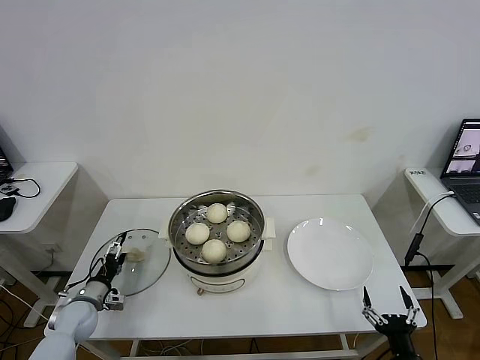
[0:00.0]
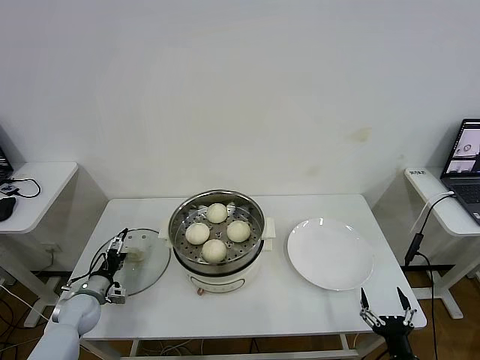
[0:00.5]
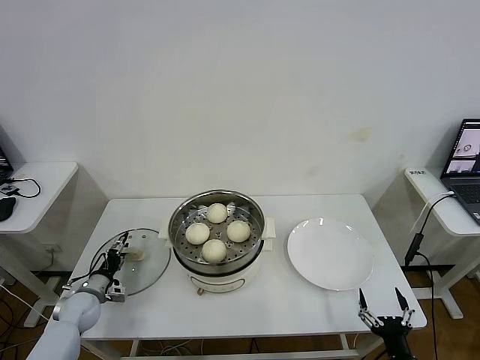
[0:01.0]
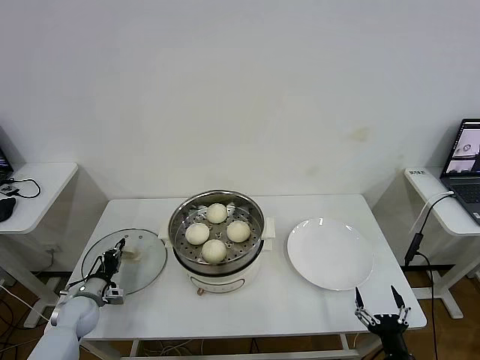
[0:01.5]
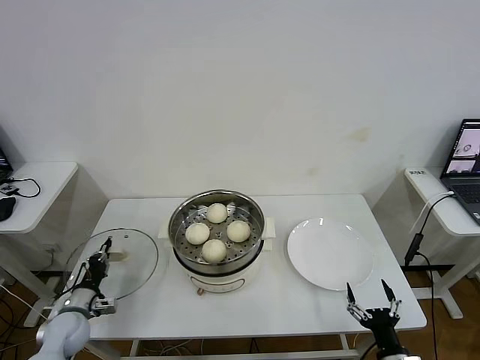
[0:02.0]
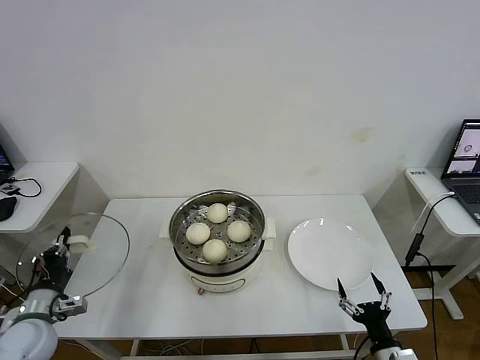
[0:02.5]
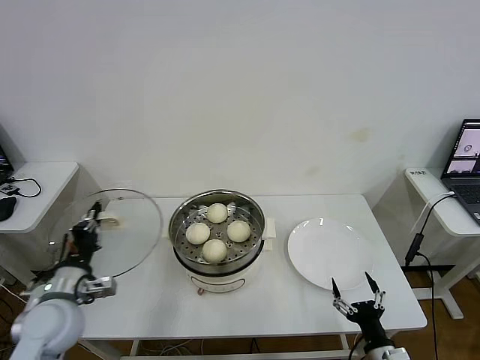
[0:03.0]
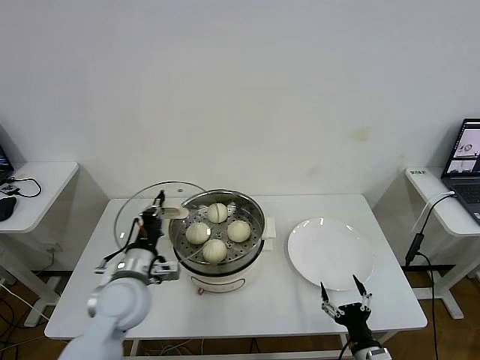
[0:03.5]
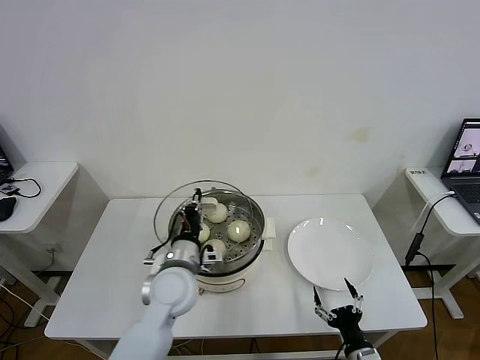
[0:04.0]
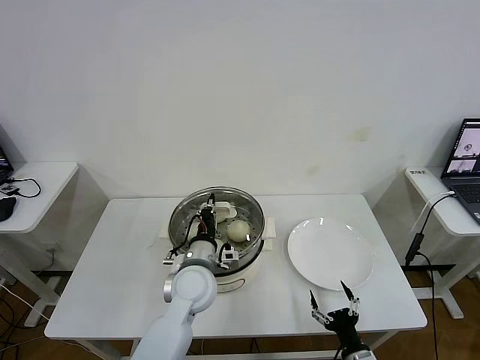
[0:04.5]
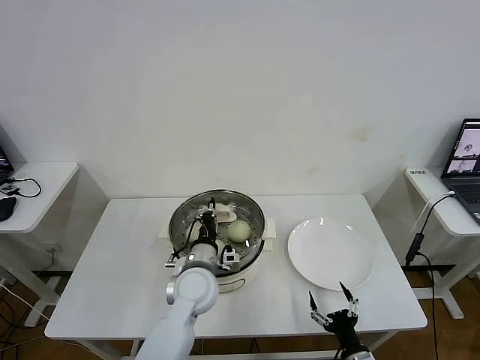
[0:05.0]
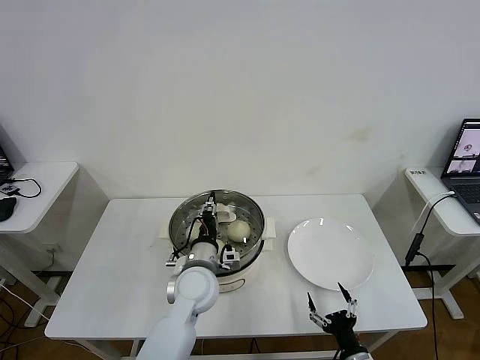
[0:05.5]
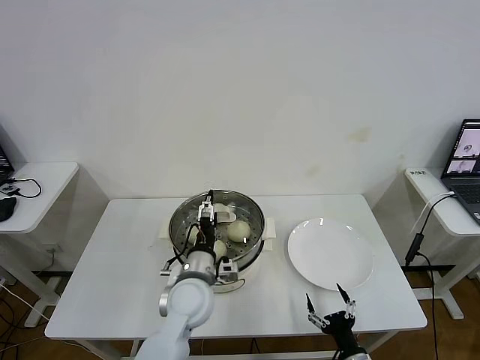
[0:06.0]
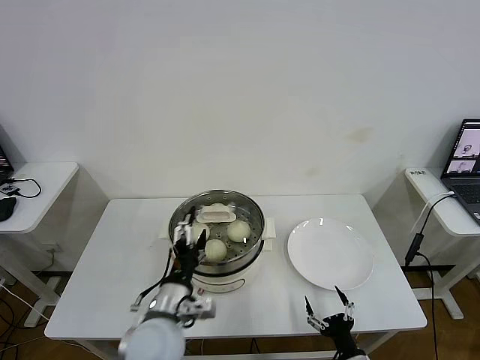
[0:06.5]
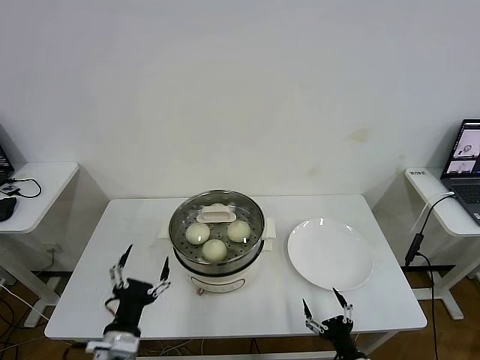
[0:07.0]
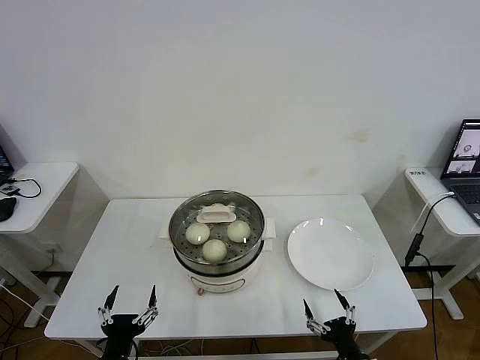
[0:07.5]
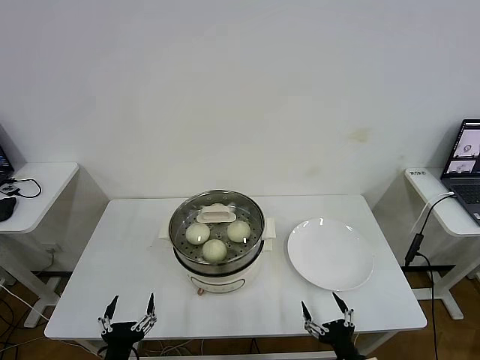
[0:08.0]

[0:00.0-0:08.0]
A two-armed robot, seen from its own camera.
Task of the whole recording: take steamed baozi put them in steamer then cover it.
Step, 2.0 to 6.0 s: Place the pot lid on the steamer with left gripper.
0.0 to 2.0 s: The left gripper closes its fingers.
2.0 to 4.0 s: The left gripper travels to the right and upward by roughly 30 cm; the right gripper ends up roughly 5 cm from where it was.
4.0 to 6.0 s: The left gripper opens up.
6.0 to 8.0 s: The right gripper changes place by about 5 cm; the left gripper heads backward and to the left, covering some 25 cm.

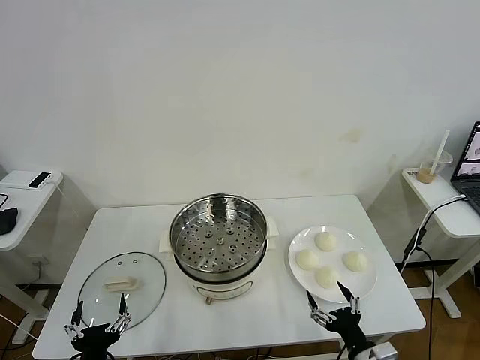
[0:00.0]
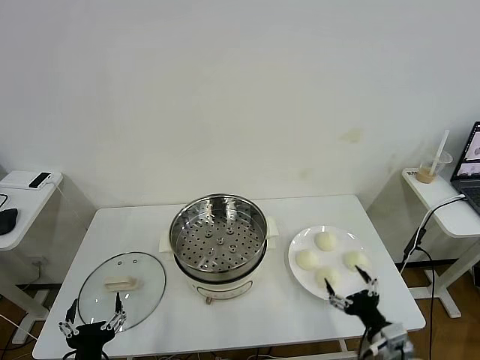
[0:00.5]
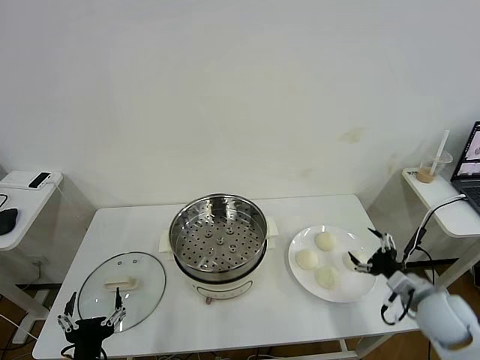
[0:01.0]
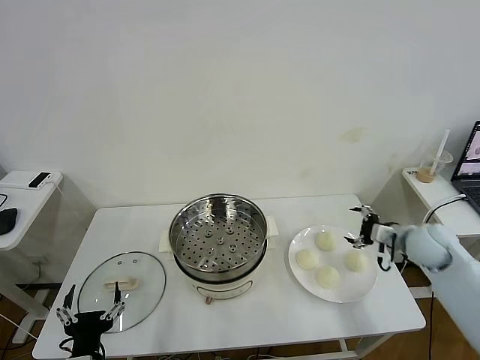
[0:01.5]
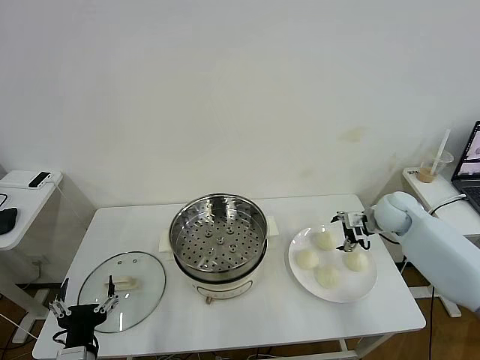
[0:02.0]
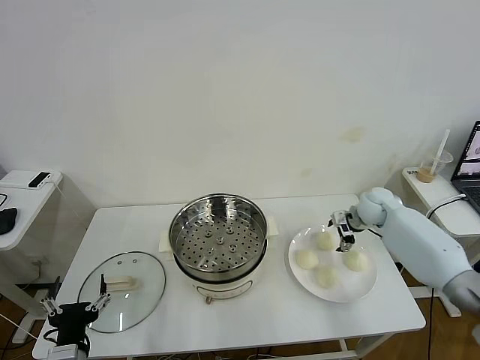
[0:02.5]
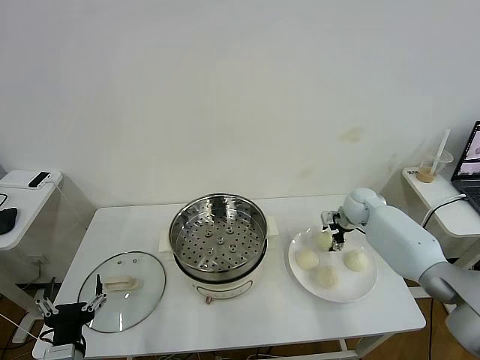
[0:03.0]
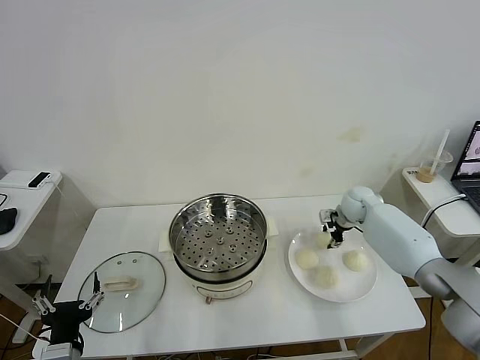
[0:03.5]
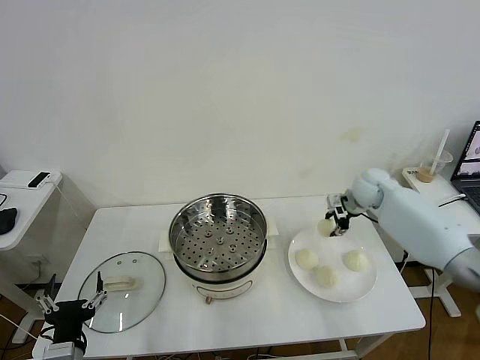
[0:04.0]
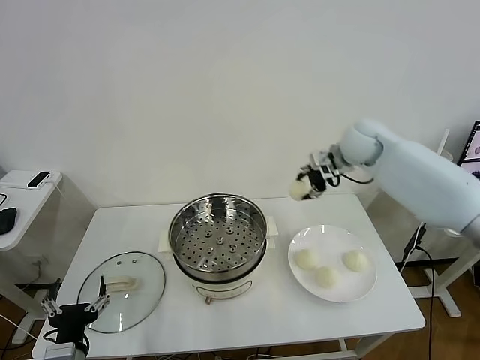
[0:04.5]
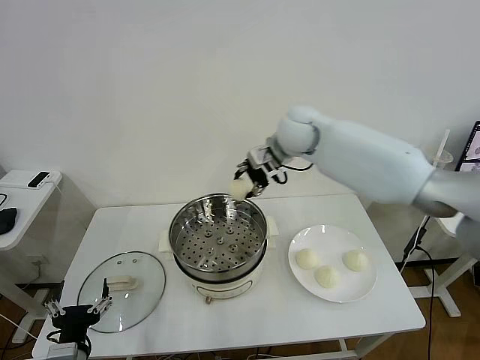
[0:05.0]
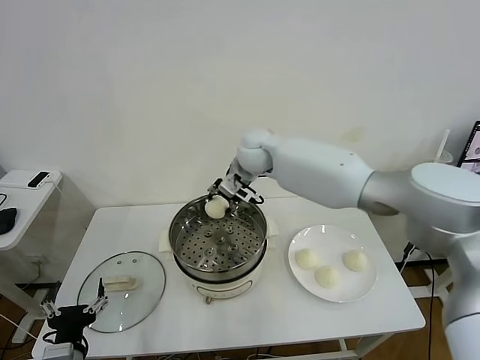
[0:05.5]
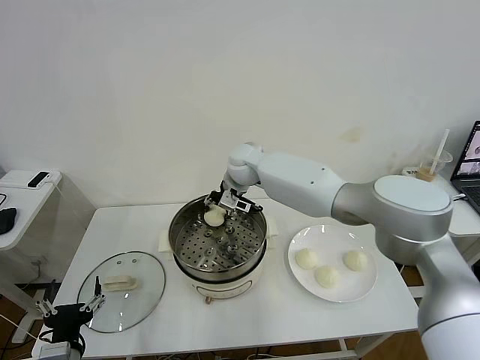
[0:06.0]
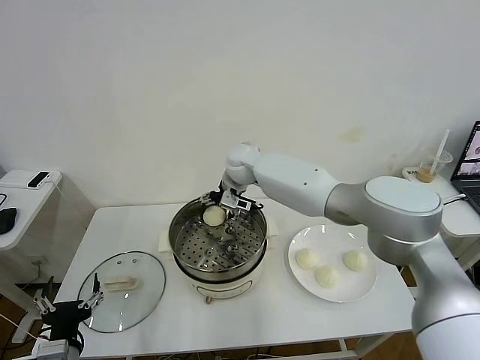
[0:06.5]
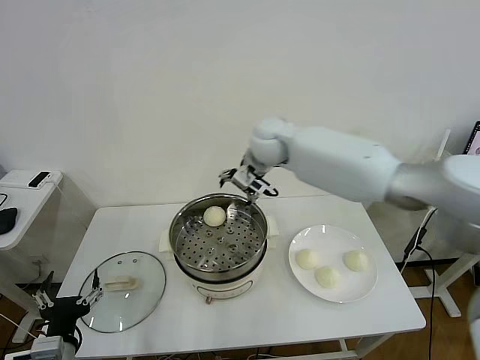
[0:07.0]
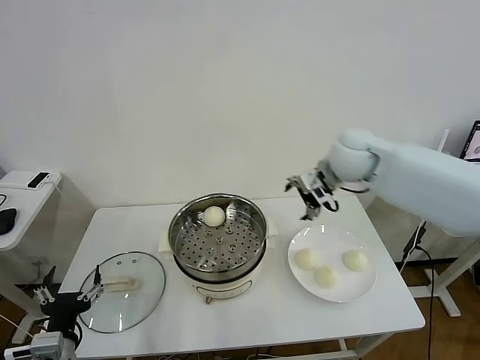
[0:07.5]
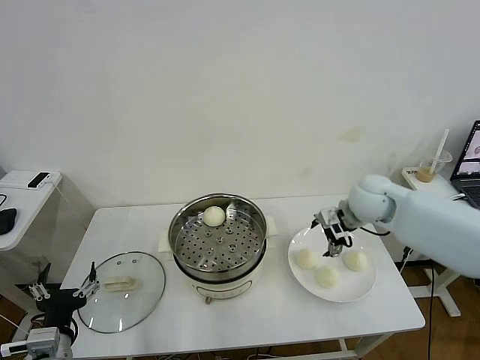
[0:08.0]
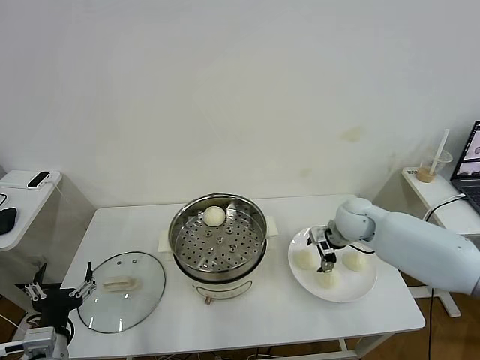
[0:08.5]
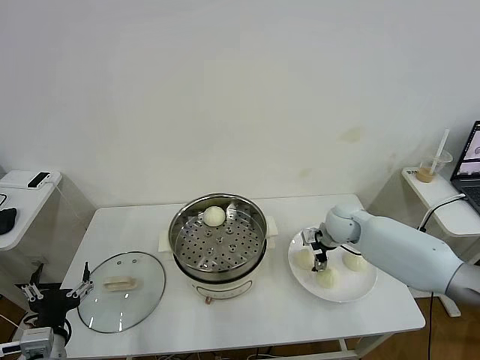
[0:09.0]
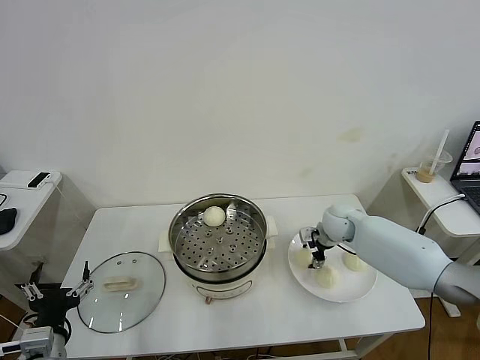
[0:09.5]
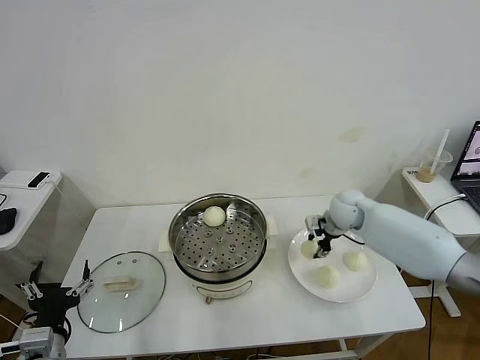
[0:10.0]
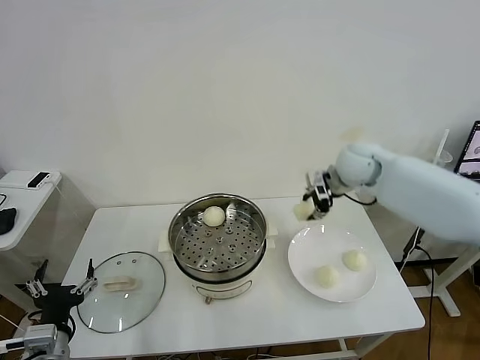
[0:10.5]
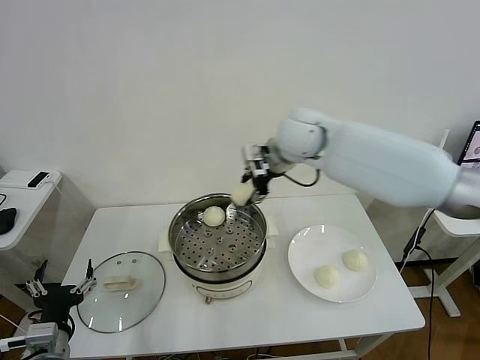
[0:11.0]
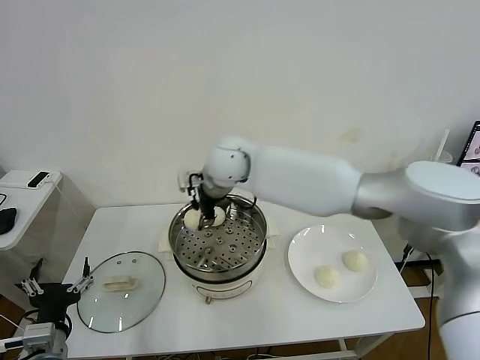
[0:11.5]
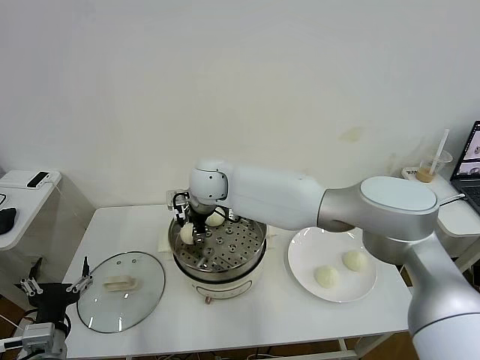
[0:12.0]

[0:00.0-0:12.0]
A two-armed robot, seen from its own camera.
Task of the whole recording: take steamed baozi put them in steamer then cover it.
Step, 0.0 to 3.0 s: Grasp the baozi in the plate with right gripper.
Step, 3.5 to 6.5 s: Place the baozi on the steamer with right gripper.
Step, 7.0 to 9.5 s: Grasp the baozi in the plate with right gripper.
2.0 to 4.0 s: The right gripper moves forward, about 5 cm, and closes its fingers.
4.0 to 6.0 s: The right gripper moves to the left, about 30 cm.
6.0 to 8.0 s: The right gripper travels to the right and backward by approximately 30 cm, and opens up.
8.0 to 10.0 s: The right gripper heads downward, covering about 10 cm, and closes.
10.0 to 12.0 s: The right gripper goes some 35 cm to the left.

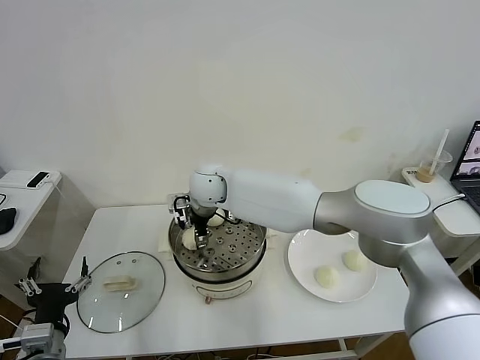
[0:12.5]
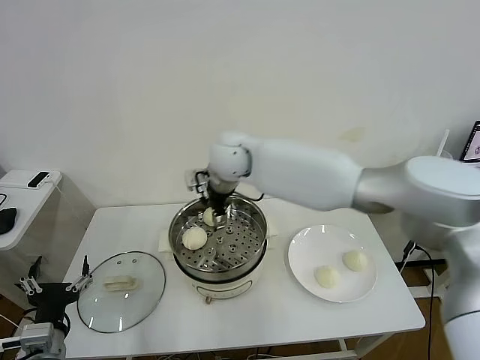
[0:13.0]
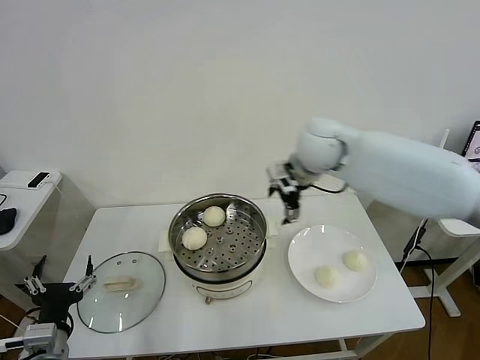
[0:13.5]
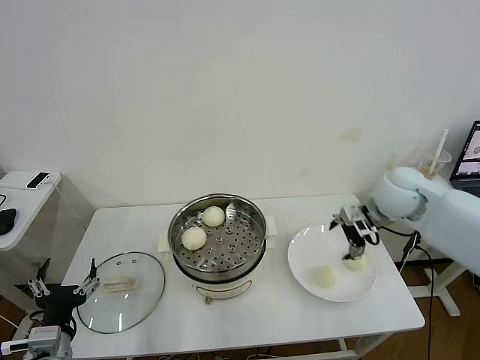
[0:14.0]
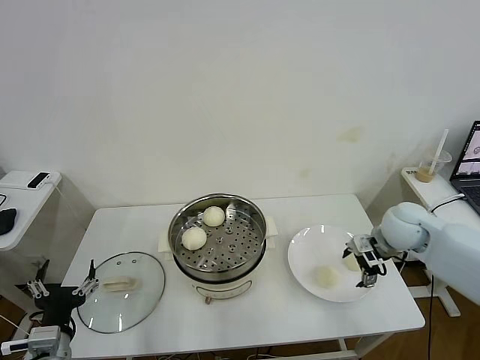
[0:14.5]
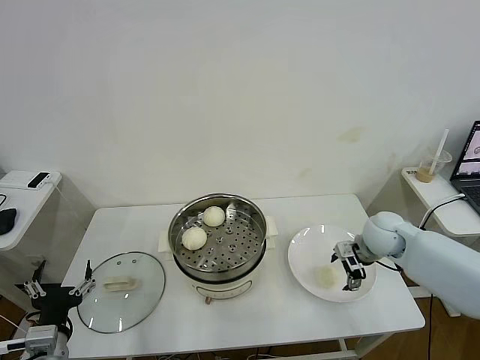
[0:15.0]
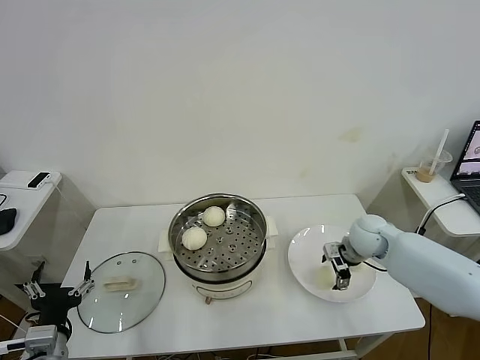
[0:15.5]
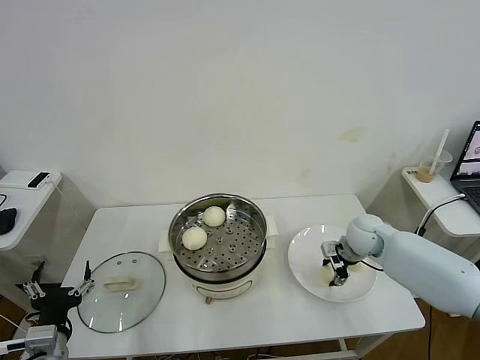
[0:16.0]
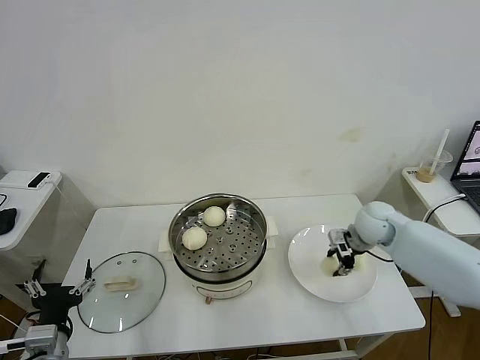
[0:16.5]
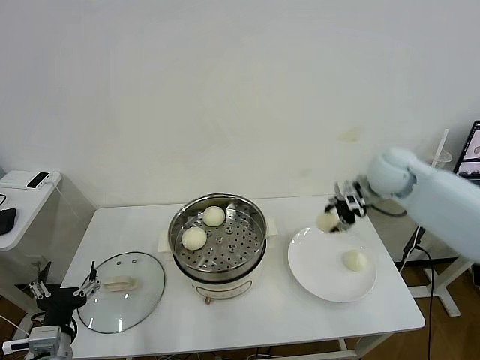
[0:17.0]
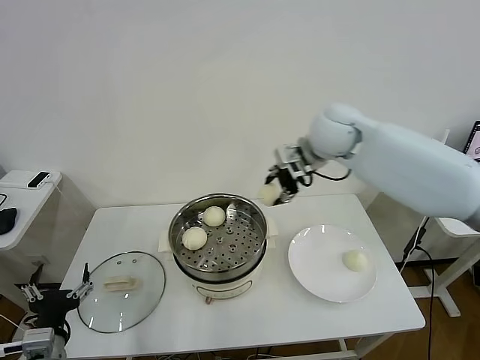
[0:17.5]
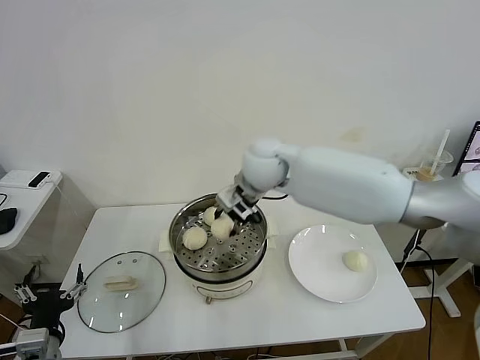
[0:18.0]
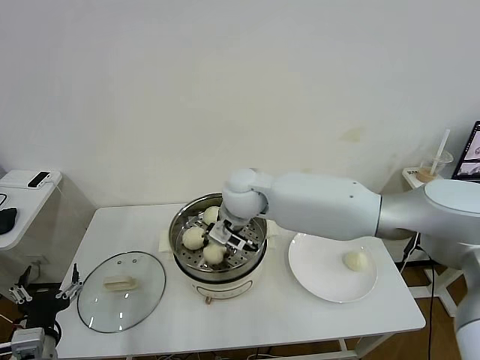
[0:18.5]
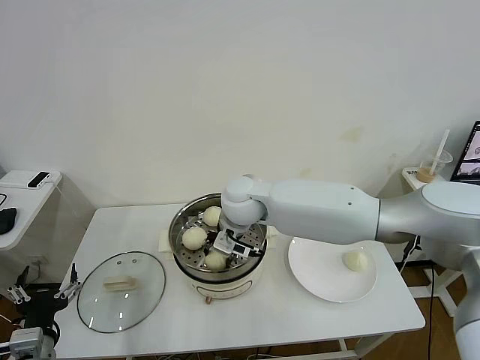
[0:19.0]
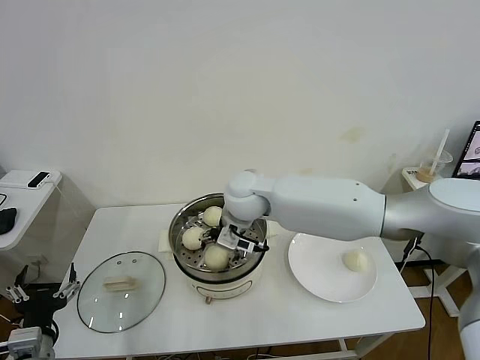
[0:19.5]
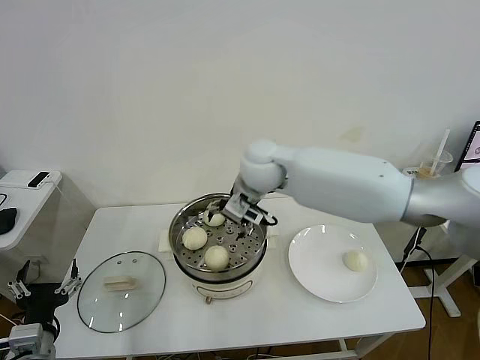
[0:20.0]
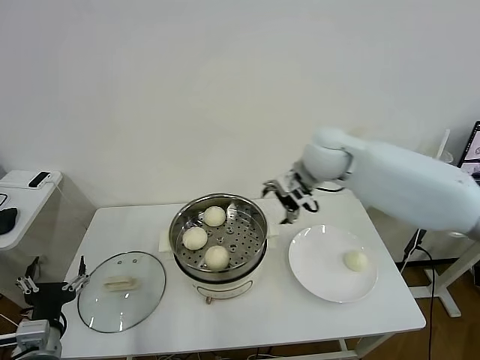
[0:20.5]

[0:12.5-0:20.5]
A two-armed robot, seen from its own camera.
Task of the whole recording: take steamed baozi put them in steamer then cover it.
Step, 13.0 to 16.0 s: Grasp the baozi in the plate with right gripper.
Step, 16.5 to 19.5 s: Place the baozi on the steamer with right gripper.
12.5 to 14.5 s: The right gripper goes approximately 40 cm to the right, and opens its fingers.
14.5 to 16.5 s: The right gripper changes place by roughly 5 cm, and closes its fingers.
16.5 to 18.5 s: The right gripper heads to the left, covering roughly 30 cm.
18.5 to 20.5 s: The right gripper shifts approximately 15 cm to the right and upward, and opens.
